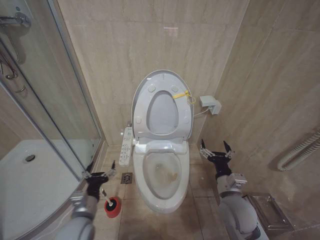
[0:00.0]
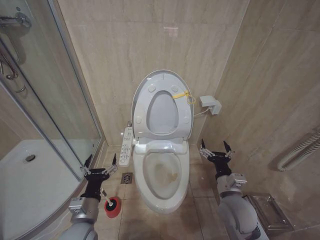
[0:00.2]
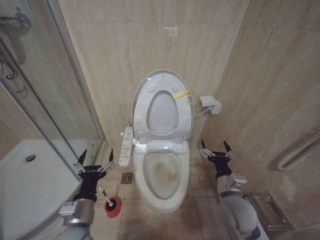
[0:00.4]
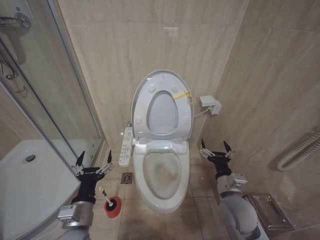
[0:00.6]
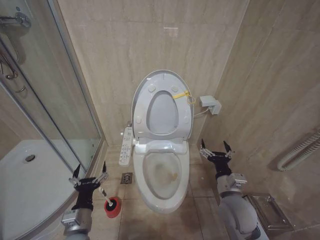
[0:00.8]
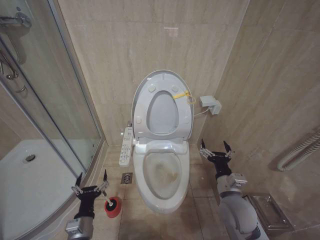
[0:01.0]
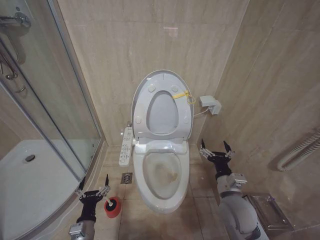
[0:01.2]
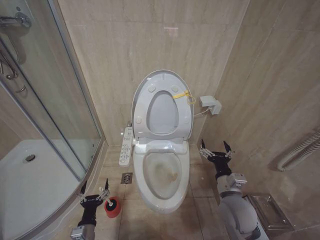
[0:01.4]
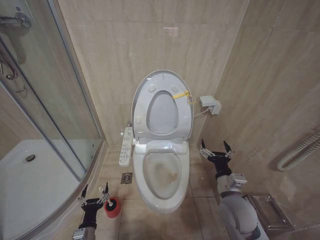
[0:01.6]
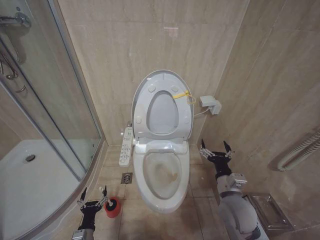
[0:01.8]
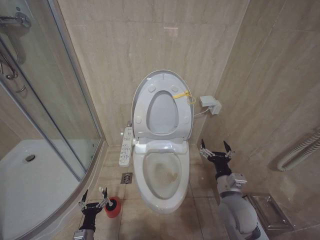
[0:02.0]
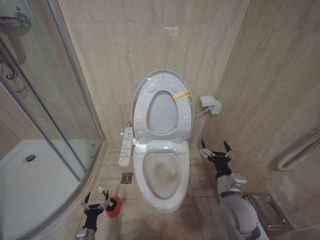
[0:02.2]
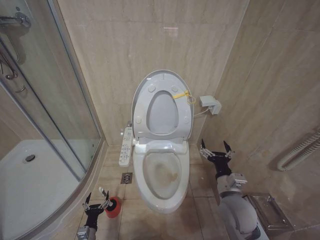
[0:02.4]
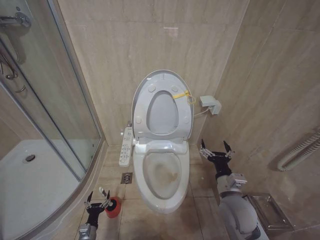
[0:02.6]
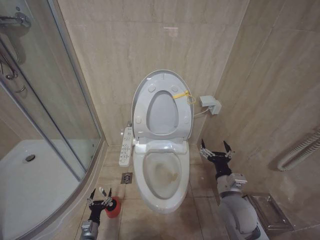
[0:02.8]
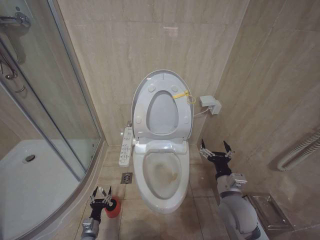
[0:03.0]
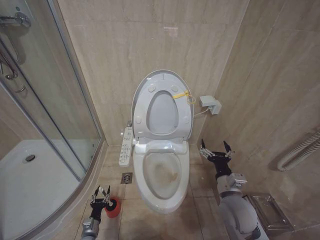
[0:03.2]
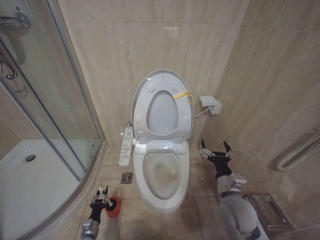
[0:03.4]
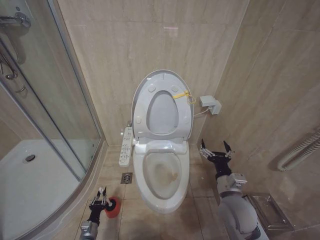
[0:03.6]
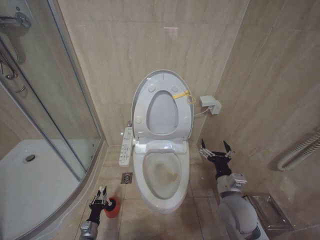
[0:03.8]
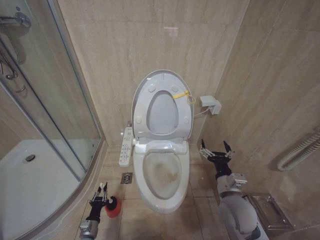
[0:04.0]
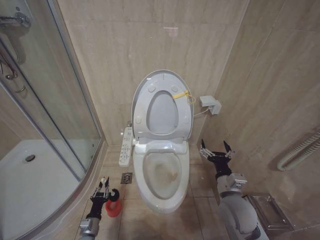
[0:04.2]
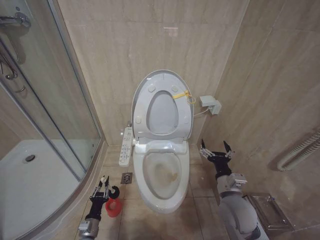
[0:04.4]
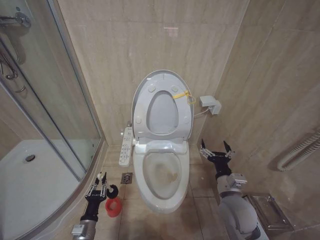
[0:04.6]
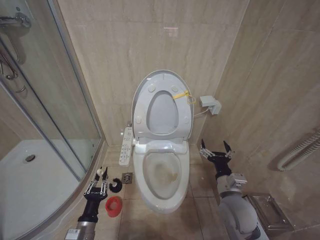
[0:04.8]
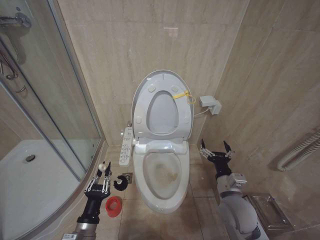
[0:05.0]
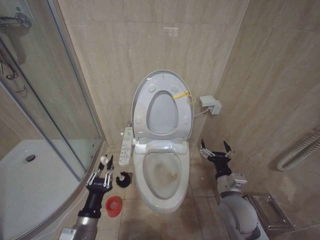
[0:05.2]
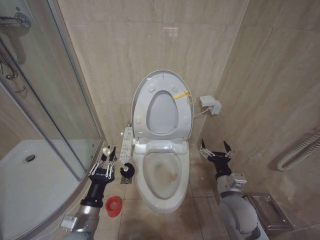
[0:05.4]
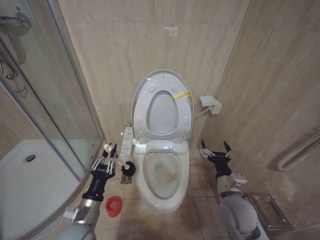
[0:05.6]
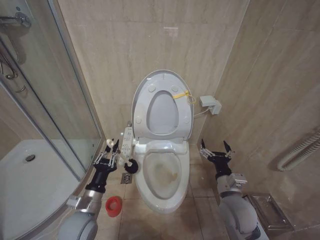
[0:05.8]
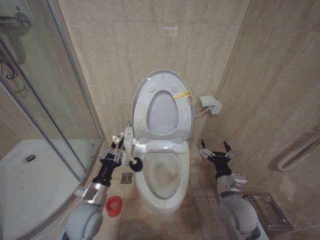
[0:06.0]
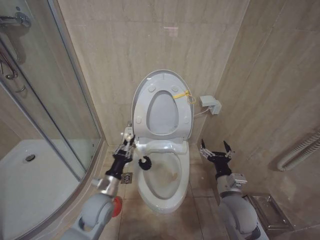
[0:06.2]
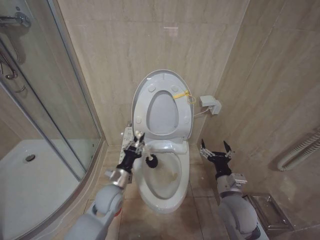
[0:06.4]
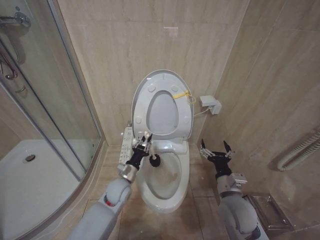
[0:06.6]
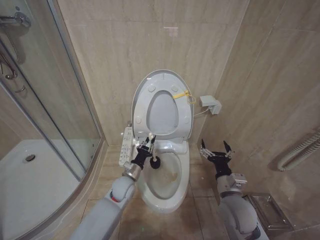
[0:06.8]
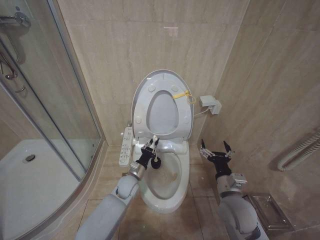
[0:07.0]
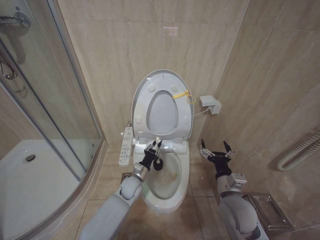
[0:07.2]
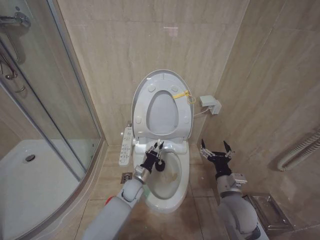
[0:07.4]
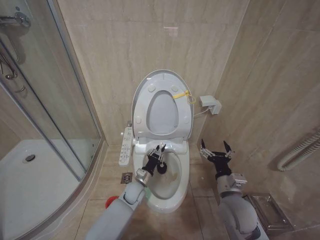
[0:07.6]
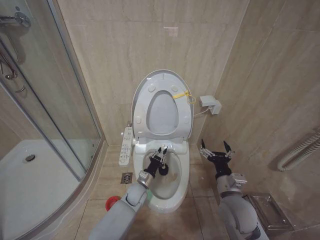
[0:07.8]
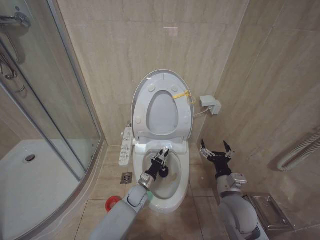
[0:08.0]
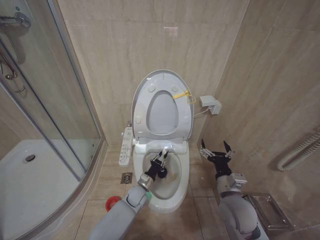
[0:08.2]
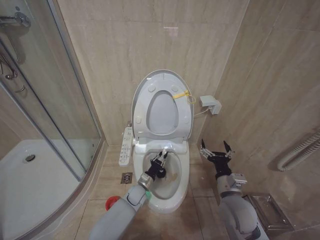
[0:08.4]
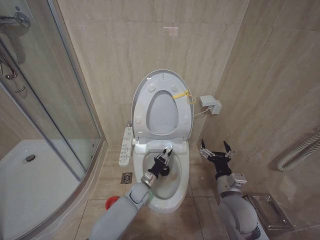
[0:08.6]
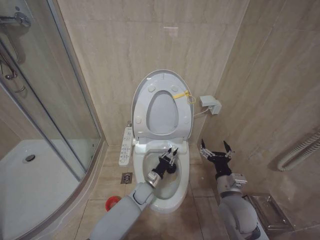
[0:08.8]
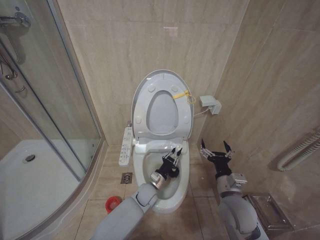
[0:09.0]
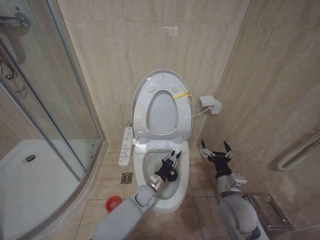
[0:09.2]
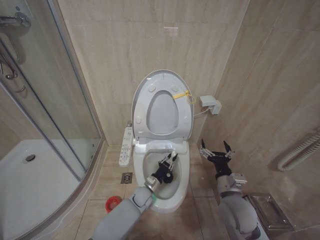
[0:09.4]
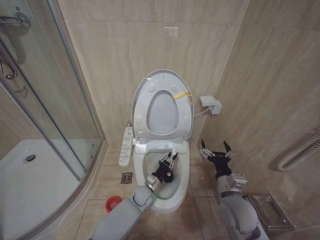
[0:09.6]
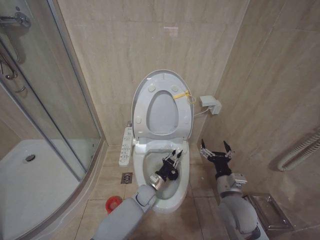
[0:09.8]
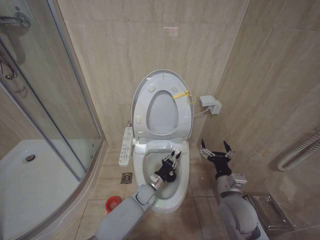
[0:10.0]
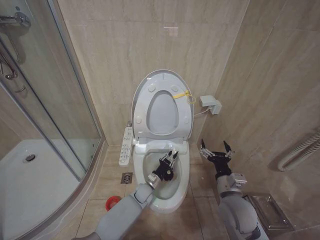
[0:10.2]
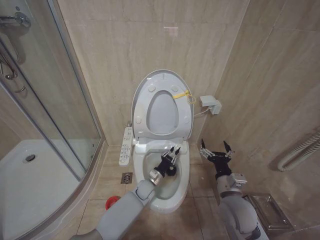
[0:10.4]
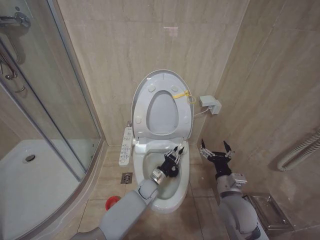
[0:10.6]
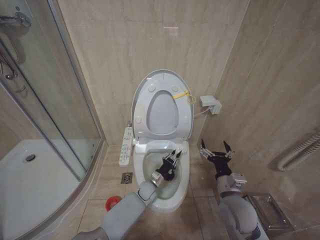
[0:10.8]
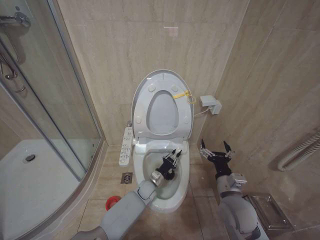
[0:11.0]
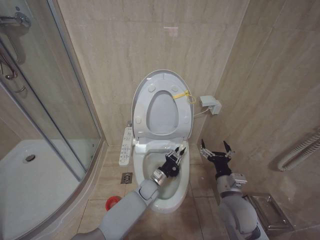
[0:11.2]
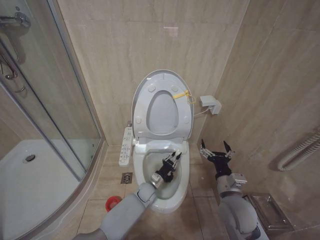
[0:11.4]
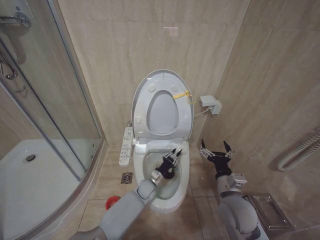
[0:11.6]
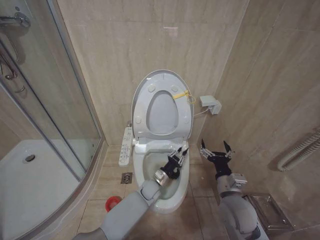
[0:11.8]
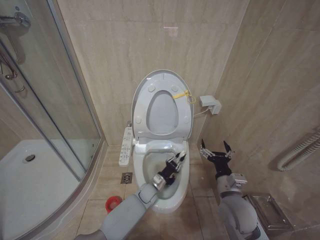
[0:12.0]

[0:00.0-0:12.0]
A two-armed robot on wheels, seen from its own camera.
Task of the whole recording: Open the toilet lid, clean the toilet bowl with a toilet brush, close the toilet lid, and flush.
0:00.0 to 0:01.6: The left gripper shifts about 15 cm downward.
0:01.6 to 0:03.0: The left gripper shifts some 15 cm downward and forward.
0:03.0 to 0:04.4: The left gripper goes about 5 cm upward, and closes up.
0:04.4 to 0:06.0: The left gripper goes approximately 25 cm upward.
0:06.0 to 0:07.6: The left gripper heads forward, to the right and downward, covering roughly 25 cm.
0:07.6 to 0:09.0: The left gripper is displaced to the right by about 5 cm.
0:09.0 to 0:12.0: There are only small adjustments of the grippers.

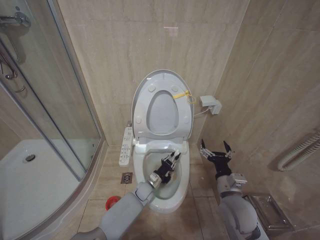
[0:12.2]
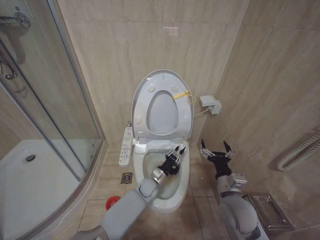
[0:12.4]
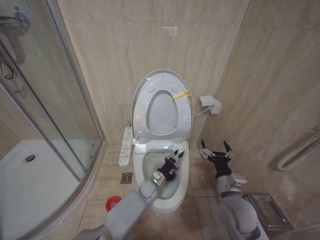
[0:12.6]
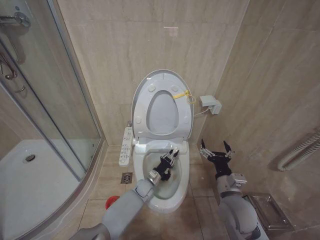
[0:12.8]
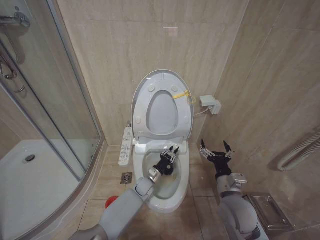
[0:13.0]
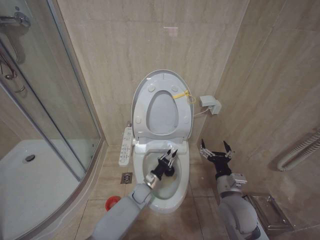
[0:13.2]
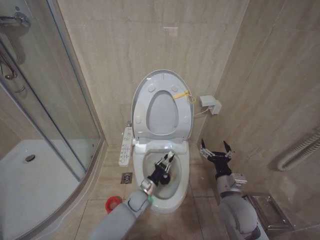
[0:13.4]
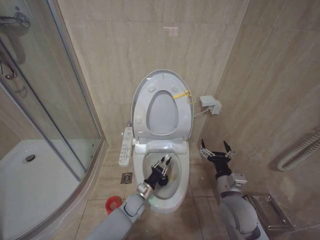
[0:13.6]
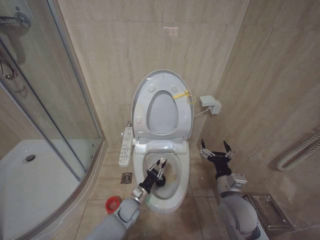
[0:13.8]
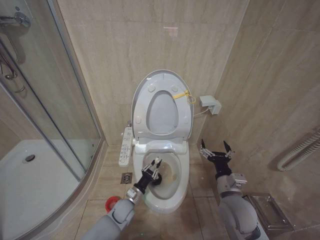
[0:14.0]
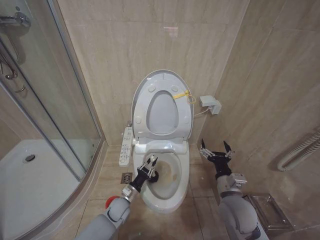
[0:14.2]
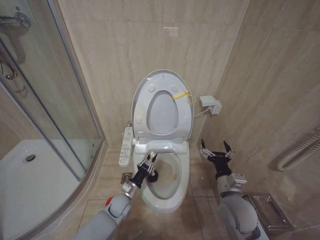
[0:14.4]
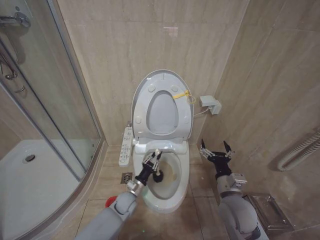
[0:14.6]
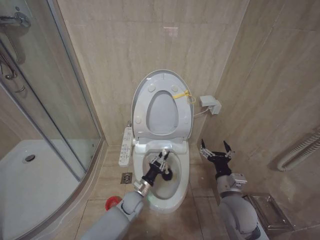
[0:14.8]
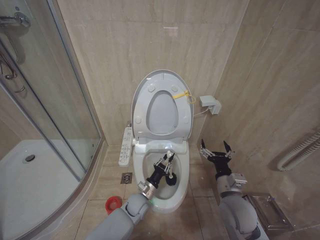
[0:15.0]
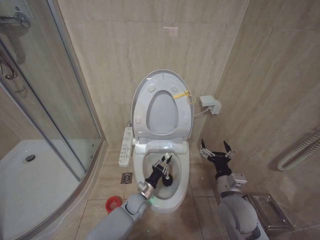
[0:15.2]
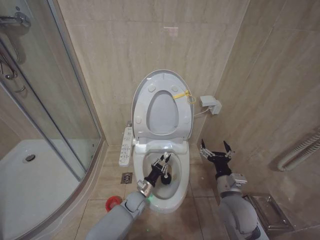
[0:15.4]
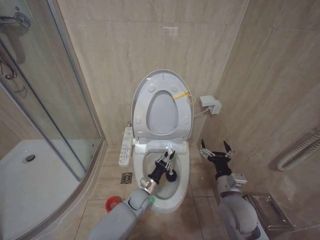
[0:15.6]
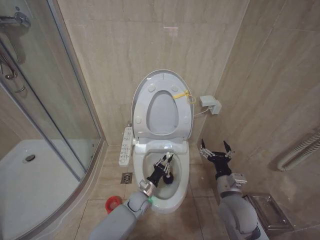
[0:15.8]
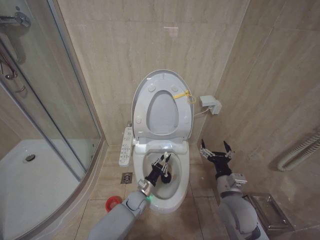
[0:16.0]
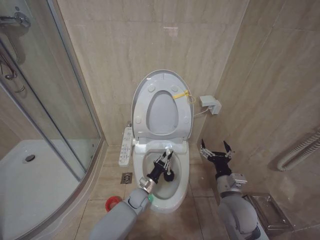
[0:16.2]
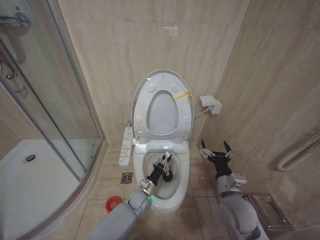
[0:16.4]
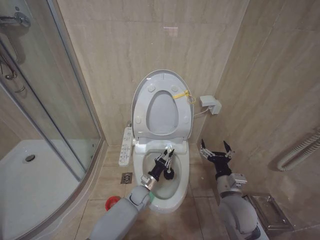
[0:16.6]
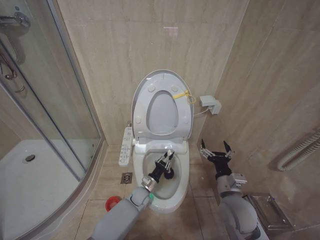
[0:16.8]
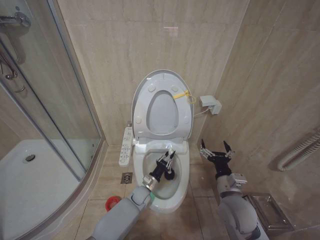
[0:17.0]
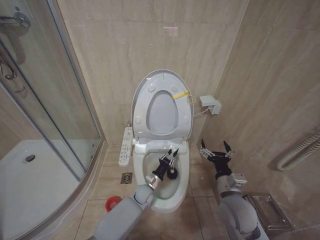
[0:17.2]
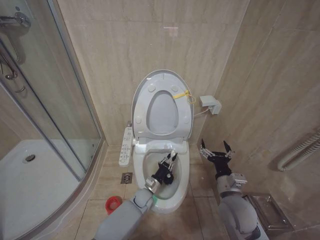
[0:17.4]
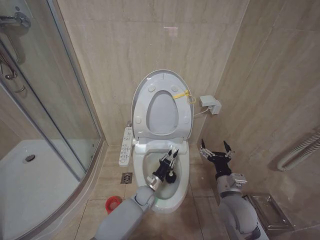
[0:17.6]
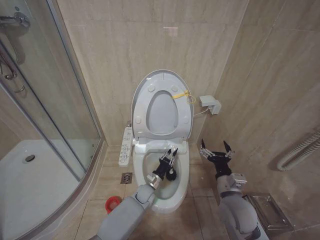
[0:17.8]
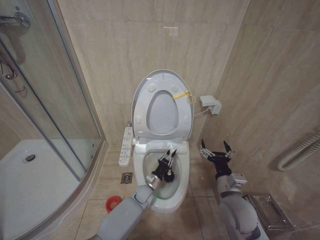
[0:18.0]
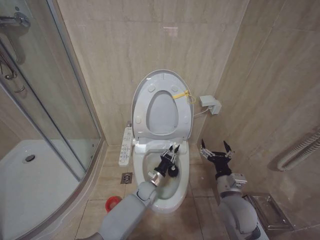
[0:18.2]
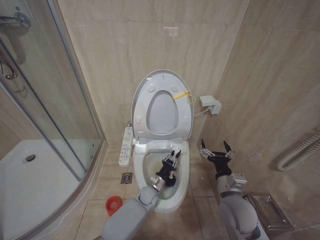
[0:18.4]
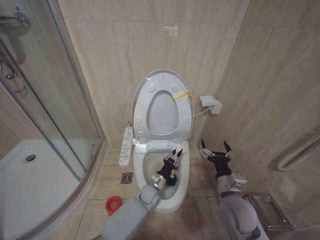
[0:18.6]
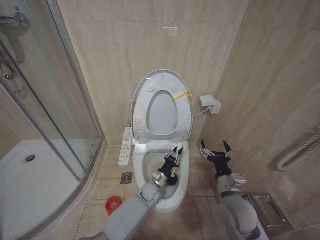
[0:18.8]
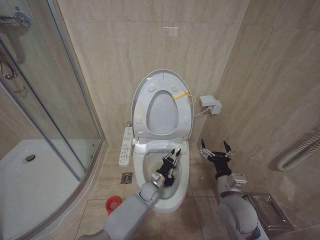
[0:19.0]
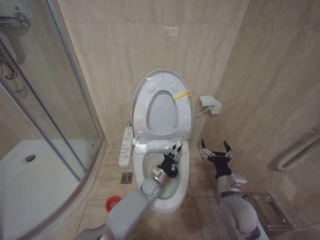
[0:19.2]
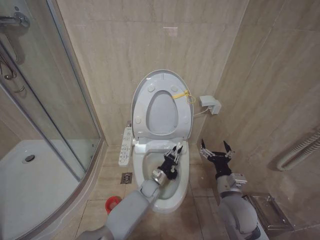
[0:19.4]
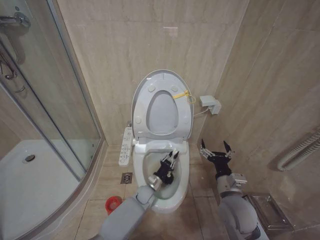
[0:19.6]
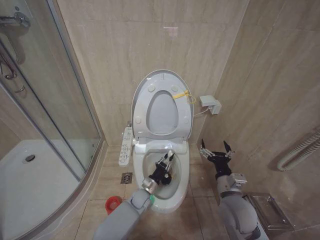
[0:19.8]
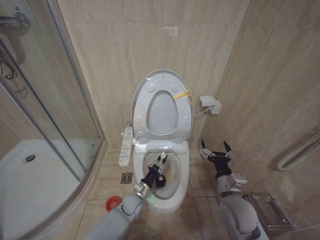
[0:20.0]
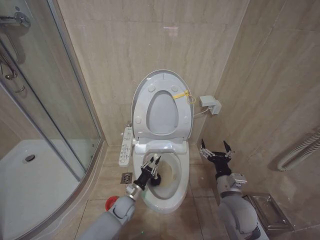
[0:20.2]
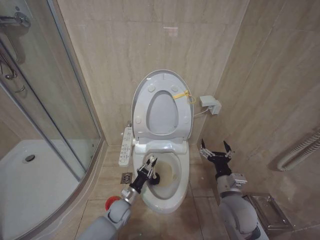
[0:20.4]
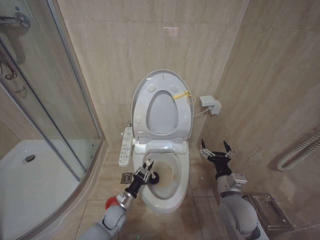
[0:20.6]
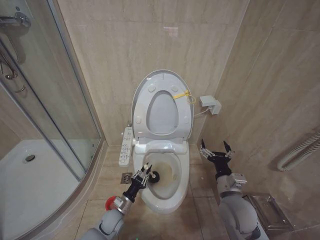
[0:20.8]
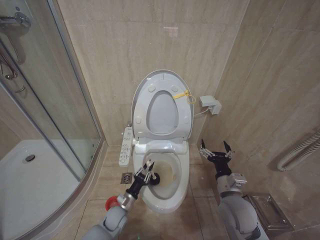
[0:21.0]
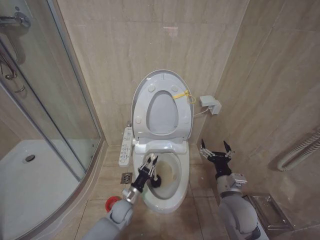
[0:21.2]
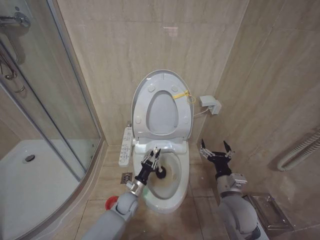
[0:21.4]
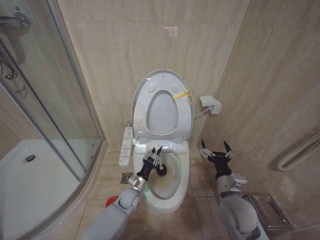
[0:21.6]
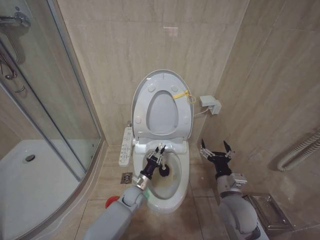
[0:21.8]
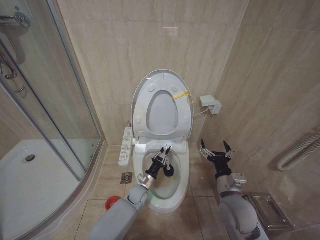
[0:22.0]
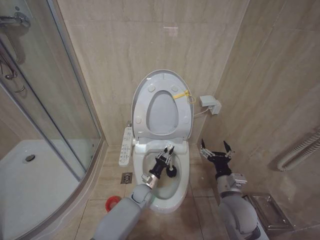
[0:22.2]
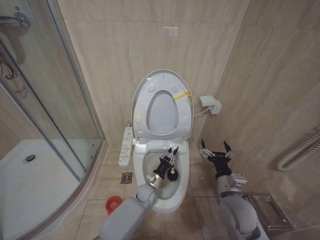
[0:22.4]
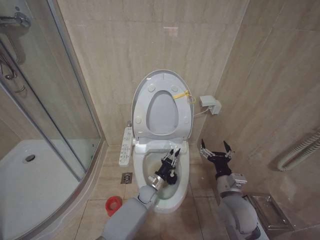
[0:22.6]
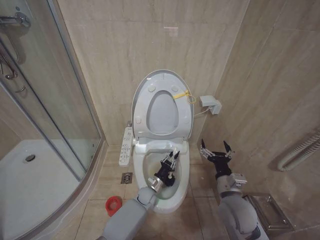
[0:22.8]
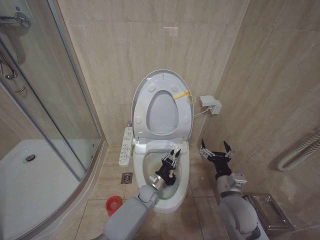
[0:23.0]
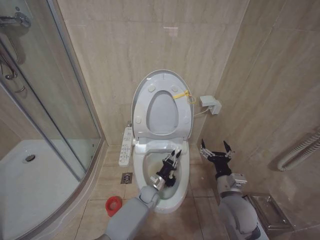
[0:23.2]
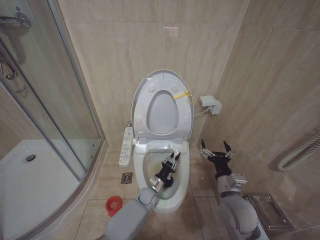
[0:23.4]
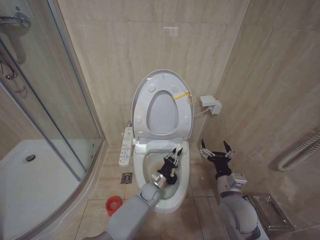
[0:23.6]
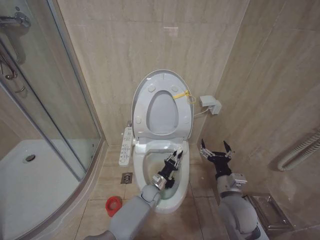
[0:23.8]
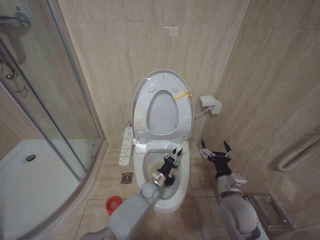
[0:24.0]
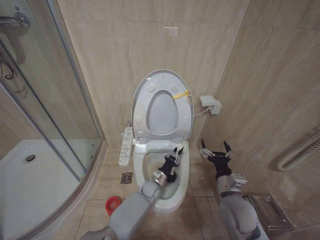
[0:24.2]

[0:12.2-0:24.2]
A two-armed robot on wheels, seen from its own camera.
Task of the whole recording: Open the toilet lid, clean the toilet bowl with a toilet brush, close the toilet lid, and flush.
0:12.2 to 0:13.8: The left gripper shifts approximately 10 cm backward and to the left.
0:13.8 to 0:15.2: The left gripper travels to the left and back again, approximately 5 cm each way.
0:15.2 to 0:16.6: There are only small adjustments of the grippers.
0:16.6 to 0:18.2: There are only small adjustments of the grippers.
0:18.2 to 0:19.8: There are only small adjustments of the grippers.
0:19.8 to 0:21.2: The left gripper moves to the left and backward, approximately 10 cm.
0:21.2 to 0:22.6: The left gripper shifts approximately 15 cm to the right and forward.
0:22.6 to 0:24.2: There are only small adjustments of the grippers.
